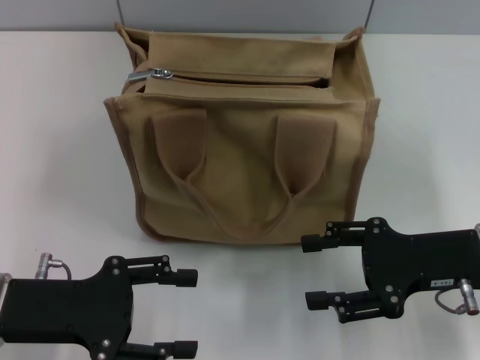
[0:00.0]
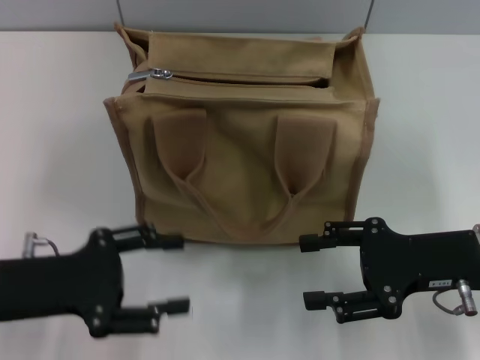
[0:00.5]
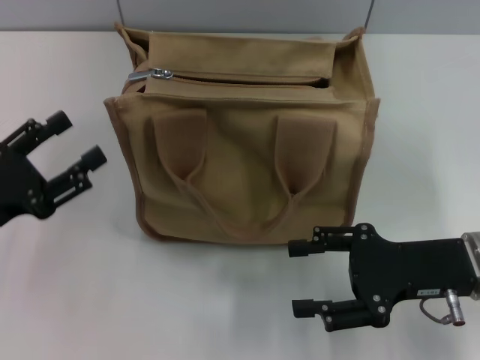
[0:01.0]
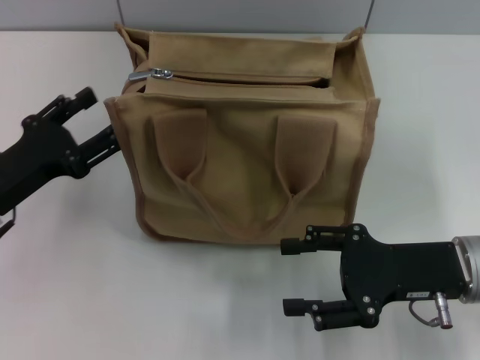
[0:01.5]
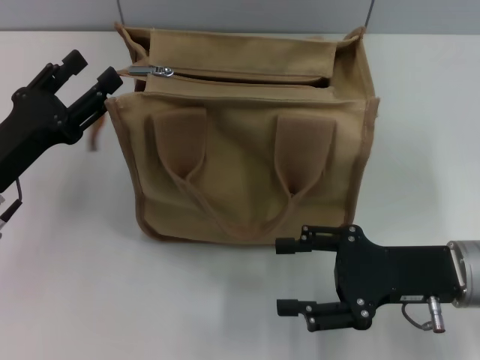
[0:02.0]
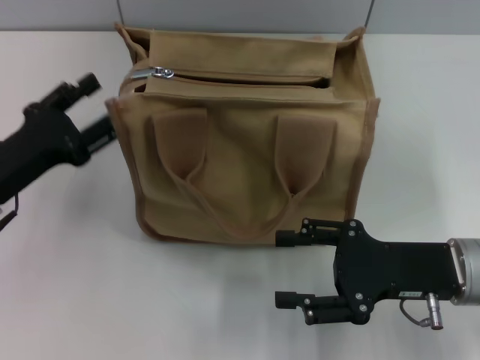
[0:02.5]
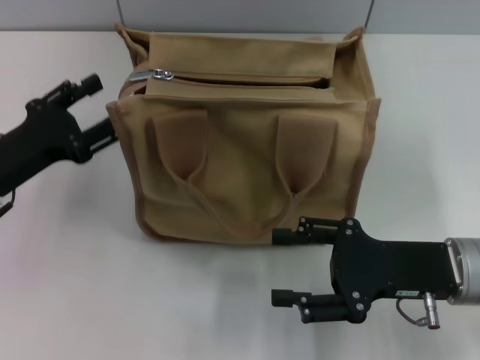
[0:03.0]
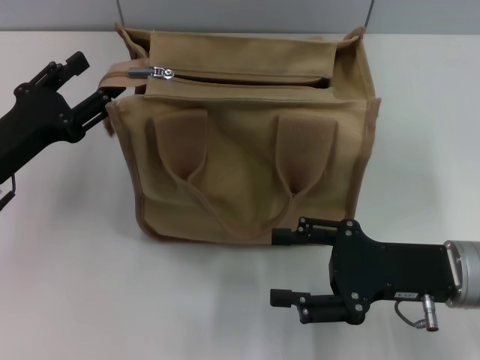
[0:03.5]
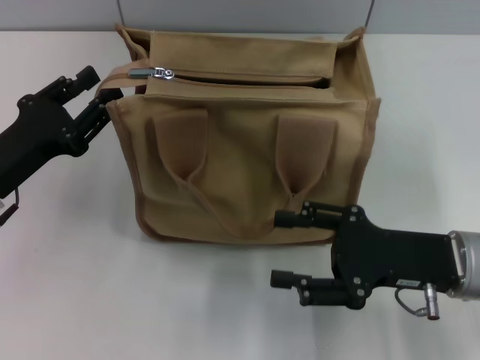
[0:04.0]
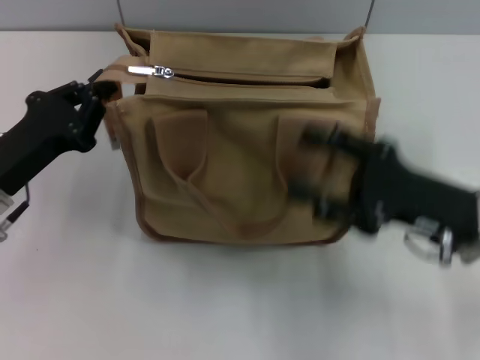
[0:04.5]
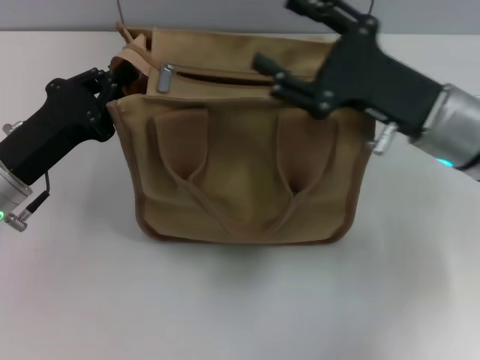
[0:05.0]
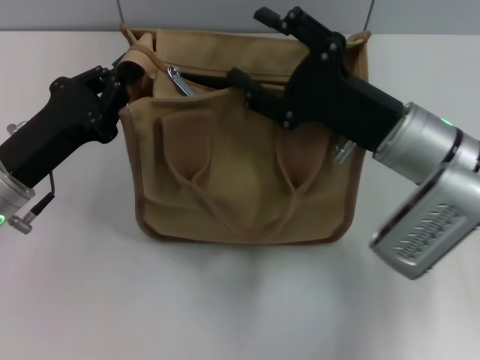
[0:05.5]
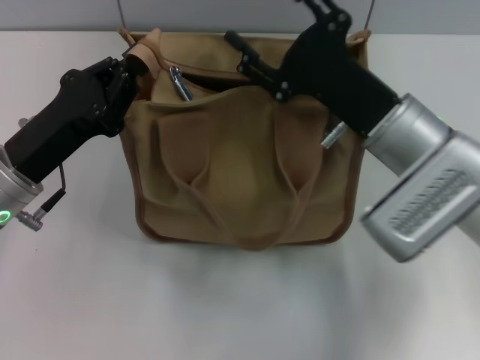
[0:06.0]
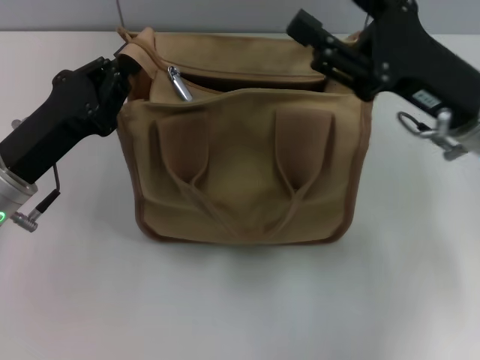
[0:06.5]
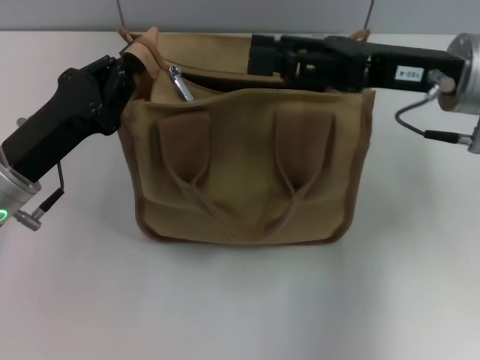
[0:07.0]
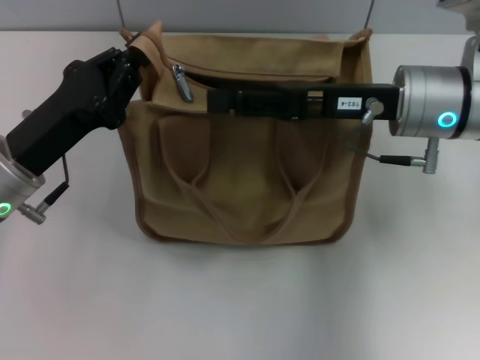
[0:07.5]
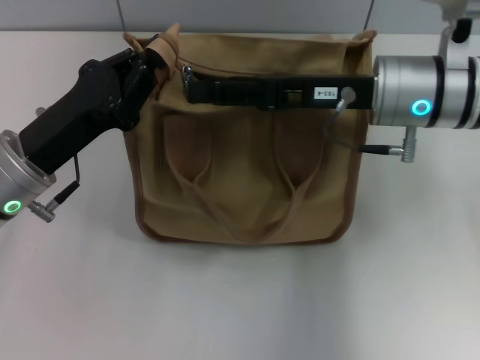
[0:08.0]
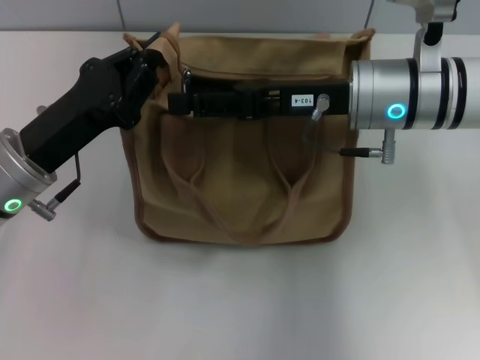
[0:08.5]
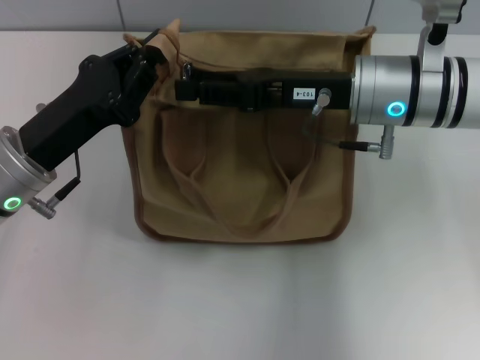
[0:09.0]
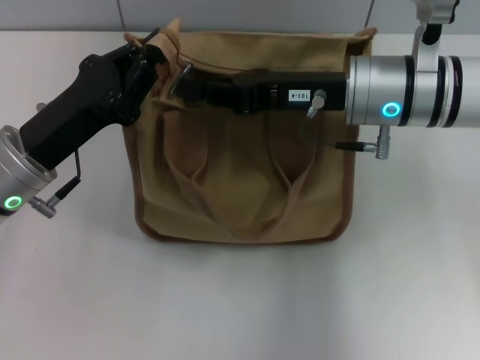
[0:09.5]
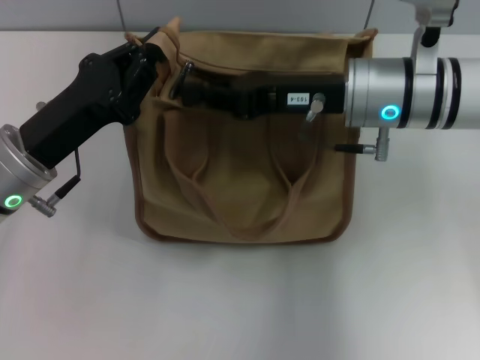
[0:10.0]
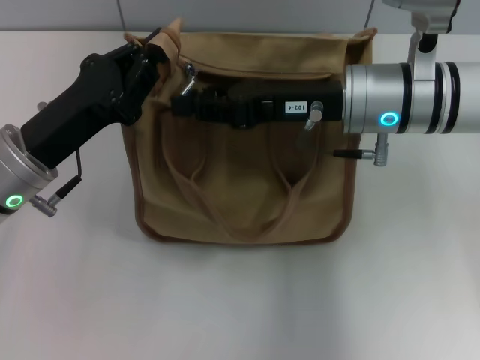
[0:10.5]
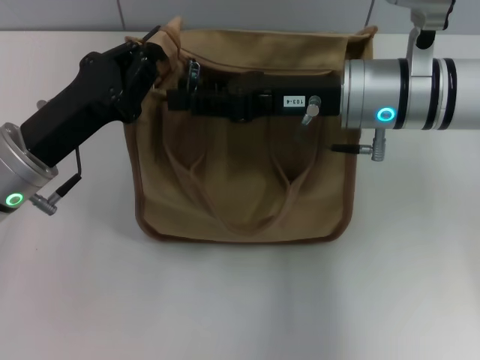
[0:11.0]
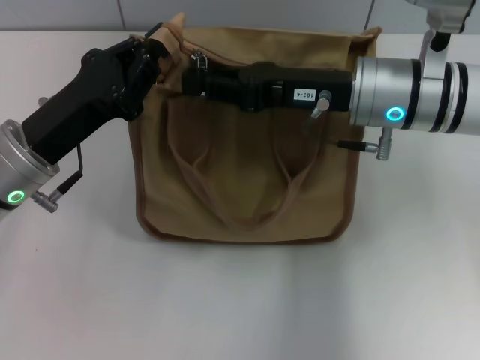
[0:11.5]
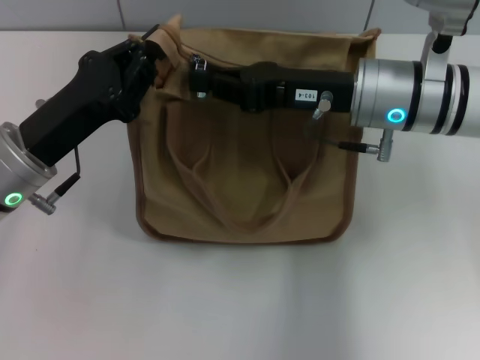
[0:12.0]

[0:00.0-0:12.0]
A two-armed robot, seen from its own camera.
0:00.0 to 0:02.0: The left gripper is displaced forward by some 5 cm.
0:02.0 to 0:04.0: The grippers stay close to where they were, moving slightly.
0:04.0 to 0:06.0: The right gripper travels to the left and forward by about 10 cm. Meanwhile the left gripper closes its fingers.
0:06.0 to 0:08.0: The right gripper moves about 5 cm.
0:08.0 to 0:10.0: The right gripper closes up.
0:10.0 to 0:12.0: The right gripper opens, then closes once more.

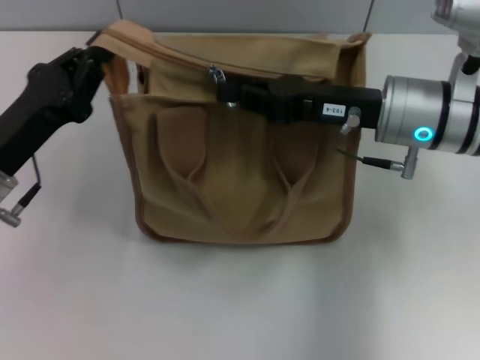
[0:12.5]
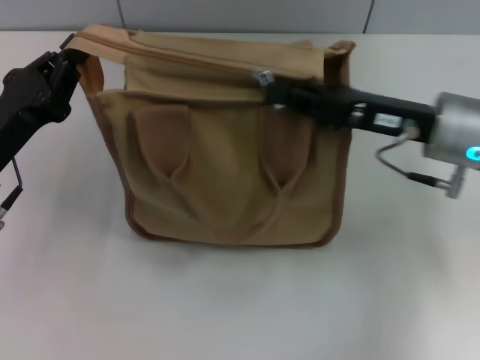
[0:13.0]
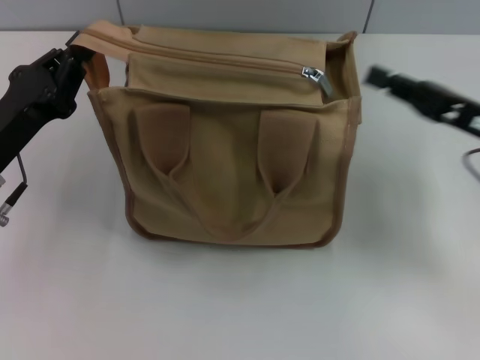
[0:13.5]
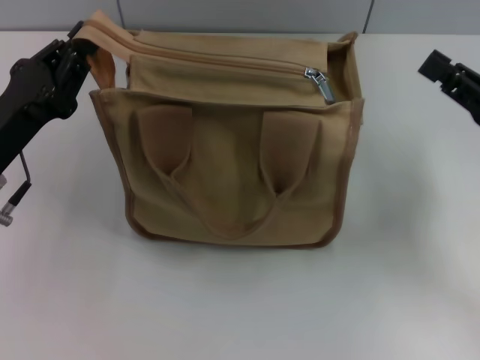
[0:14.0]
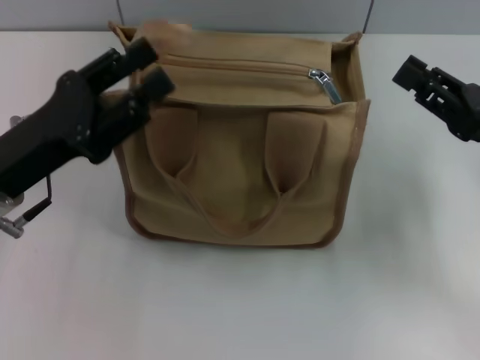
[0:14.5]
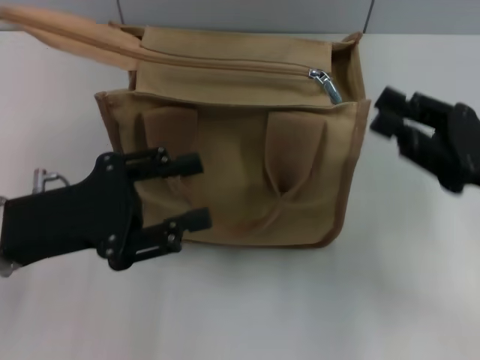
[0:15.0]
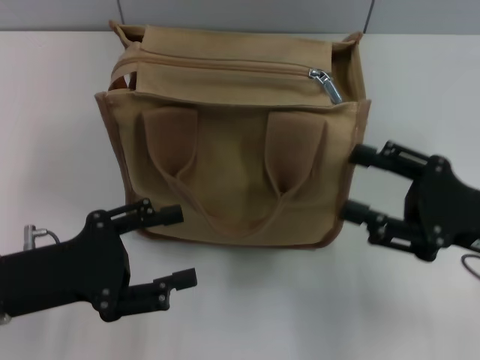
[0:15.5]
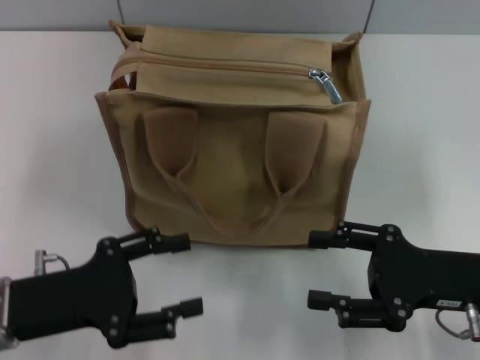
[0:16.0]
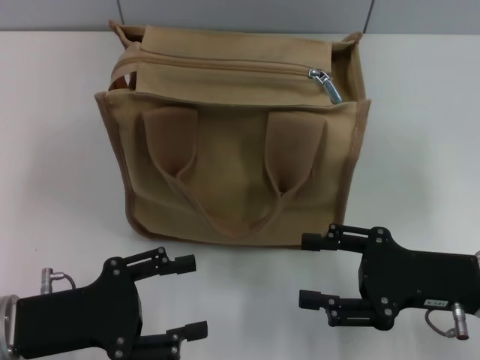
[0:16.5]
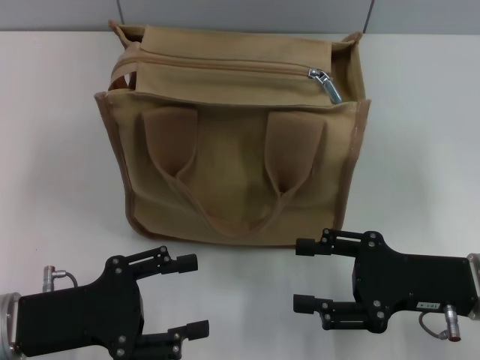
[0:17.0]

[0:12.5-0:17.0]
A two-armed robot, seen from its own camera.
Step, 0:13.5 to 0:14.5: Grab the zipper with your left hand.
0:12.5 to 0:14.5: The right gripper shifts some 15 cm to the right and backward, and opens up. The left gripper opens up.
0:14.5 to 0:17.0: The right gripper ends up approximately 10 cm from where it was, and opens up. Meanwhile the left gripper shifts some 10 cm backward and downward, and opens its fingers.

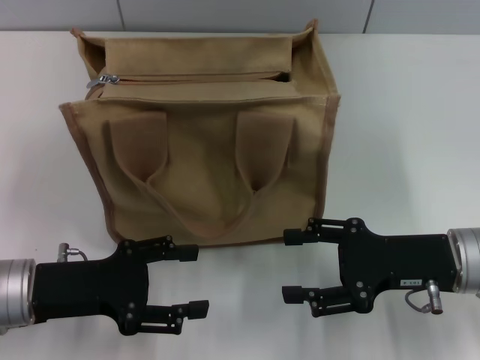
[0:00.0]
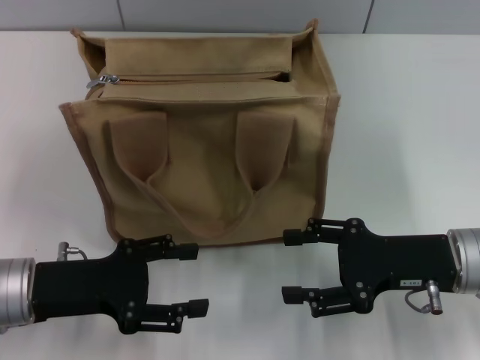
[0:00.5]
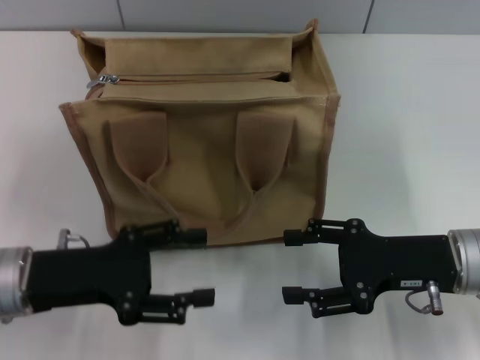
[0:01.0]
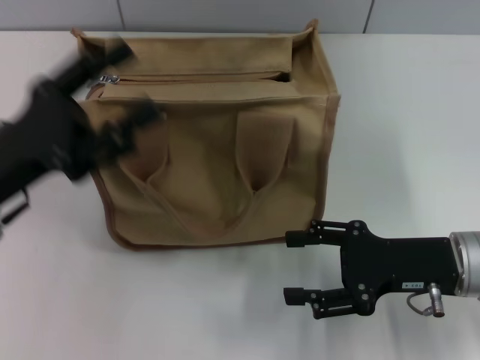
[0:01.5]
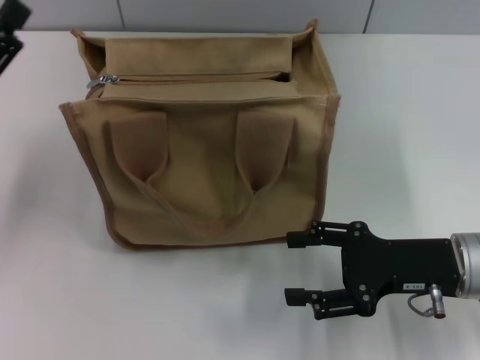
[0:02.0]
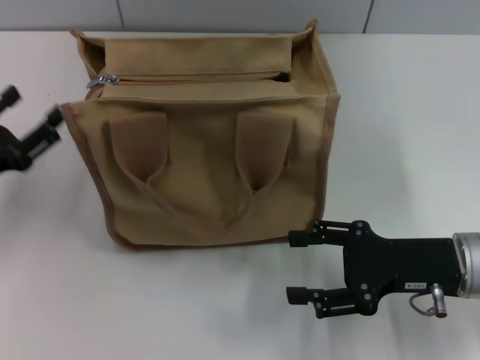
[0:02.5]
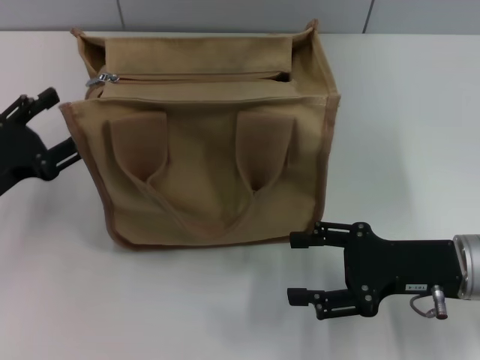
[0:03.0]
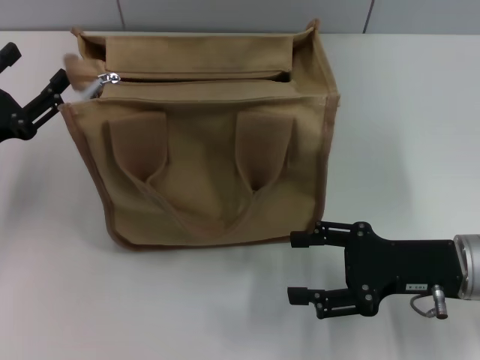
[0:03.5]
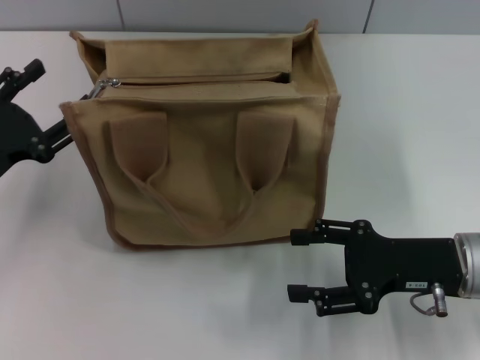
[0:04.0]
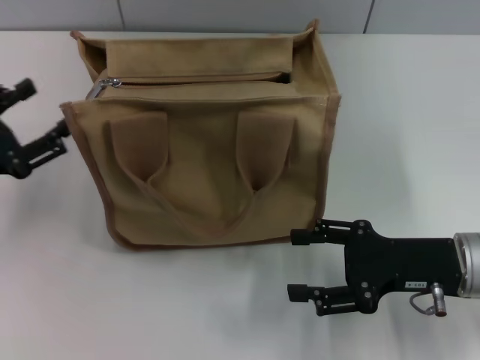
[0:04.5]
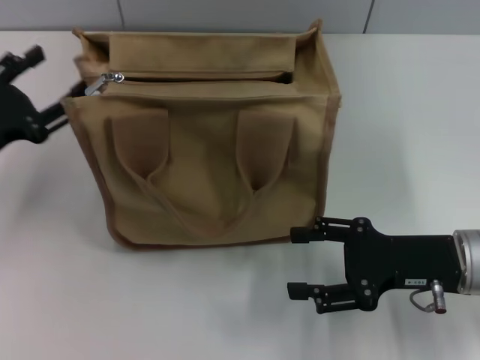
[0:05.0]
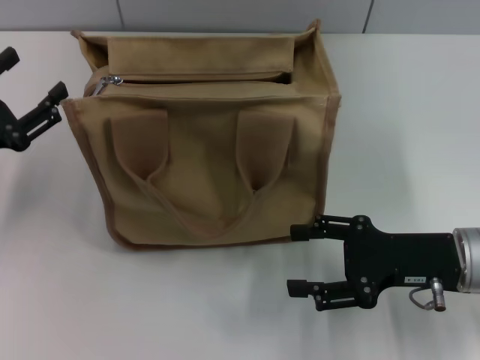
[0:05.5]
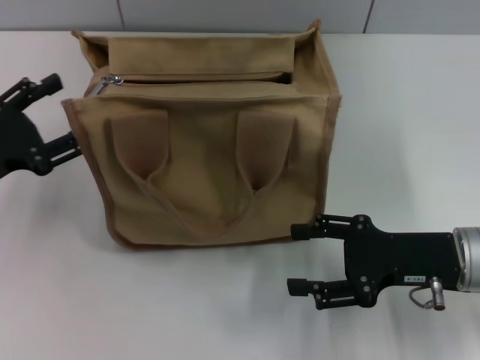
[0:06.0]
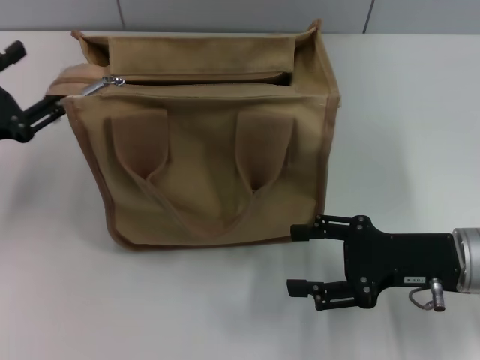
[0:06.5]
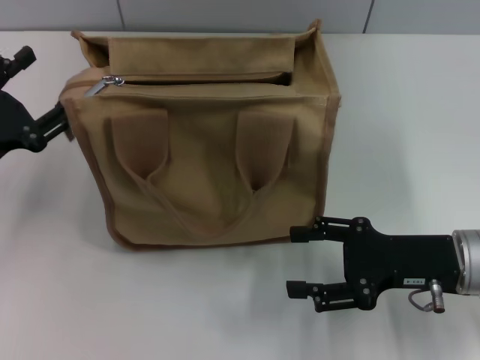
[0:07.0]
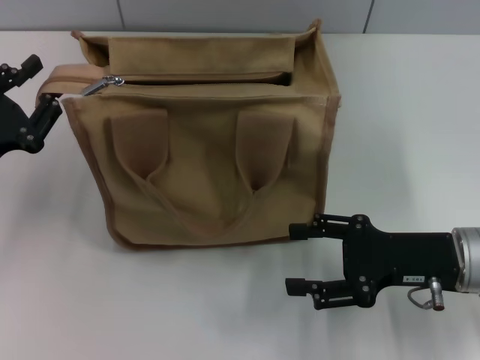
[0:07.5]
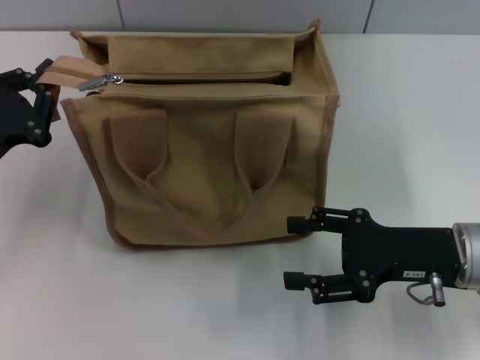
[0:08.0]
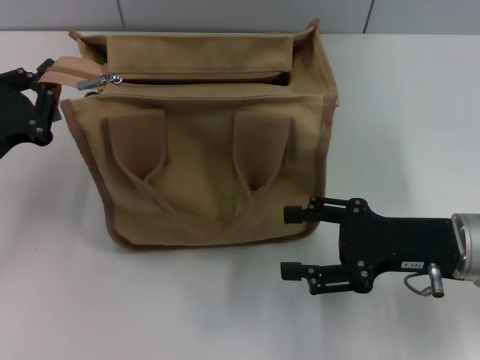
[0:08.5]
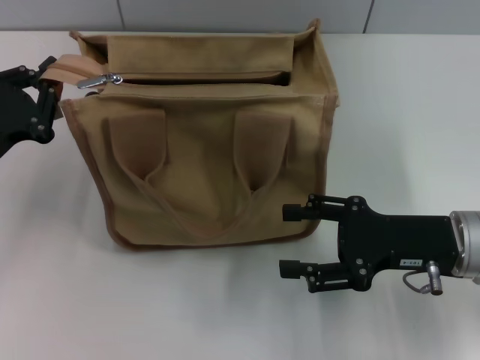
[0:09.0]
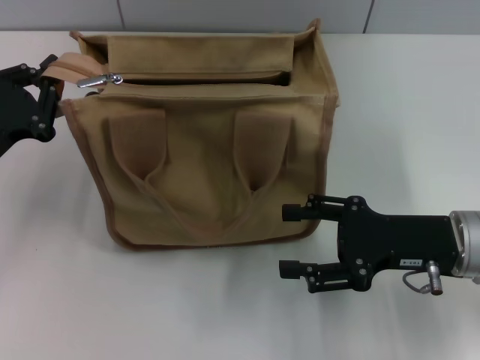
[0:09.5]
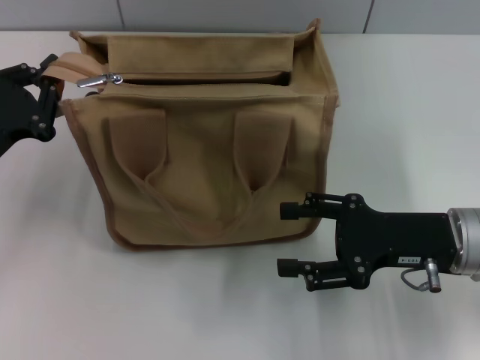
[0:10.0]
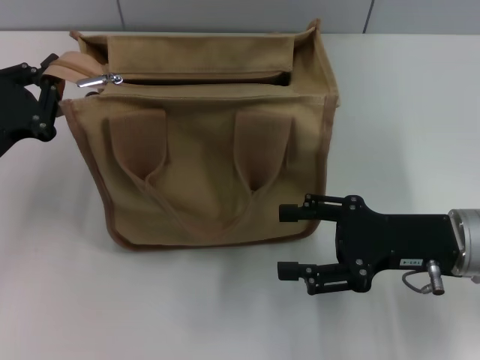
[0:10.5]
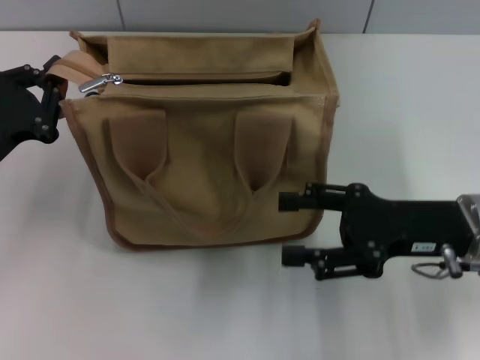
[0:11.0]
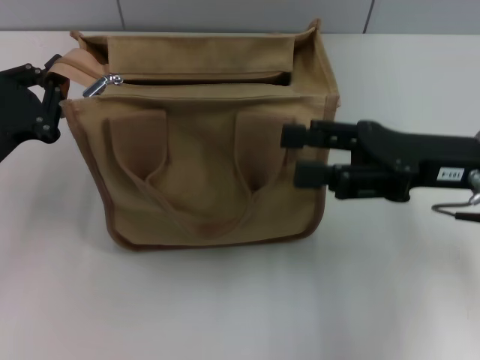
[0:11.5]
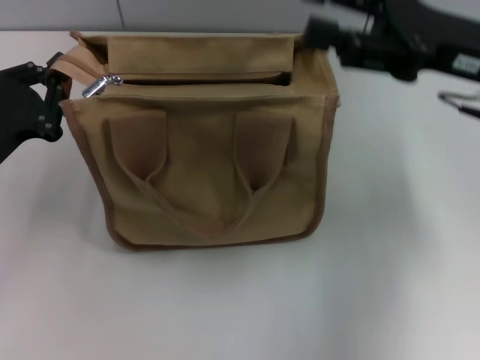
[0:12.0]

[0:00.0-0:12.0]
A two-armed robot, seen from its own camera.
0:00.0 to 0:02.0: The left gripper shifts some 10 cm to the left and upward.
0:04.0 to 0:06.0: The grippers make only small movements.
0:06.0 to 0:08.0: The left gripper closes up.
0:08.0 to 0:10.0: The grippers move only a little.
0:10.0 to 0:12.0: The right gripper moves upward and forward, about 15 cm.
